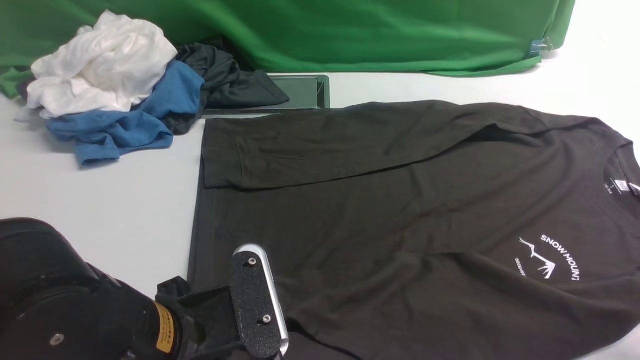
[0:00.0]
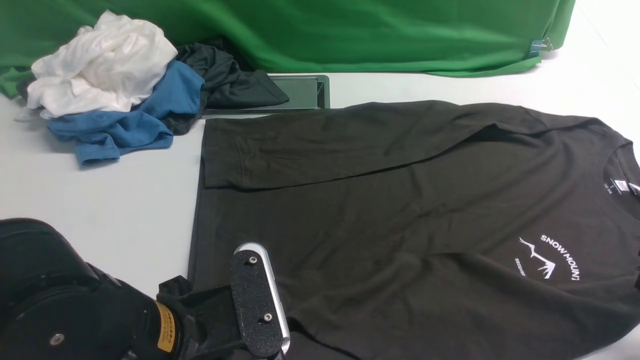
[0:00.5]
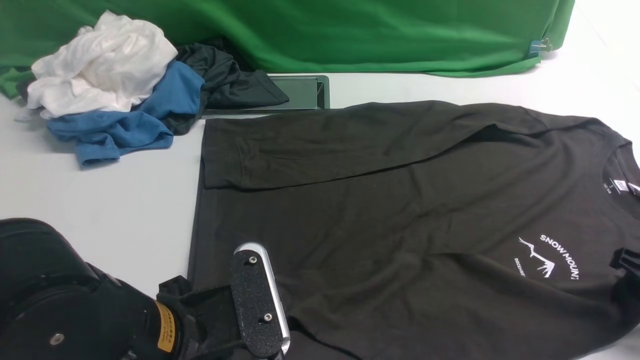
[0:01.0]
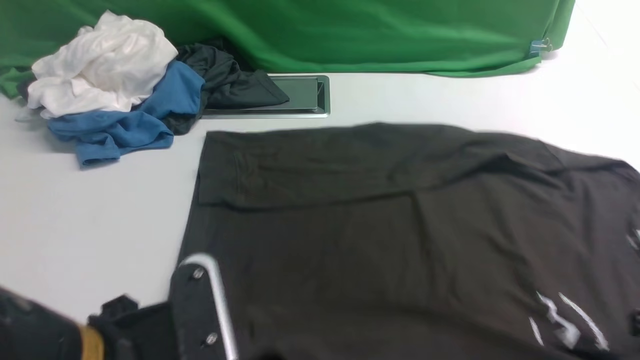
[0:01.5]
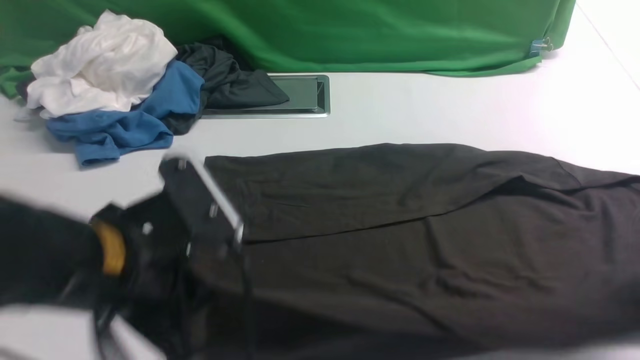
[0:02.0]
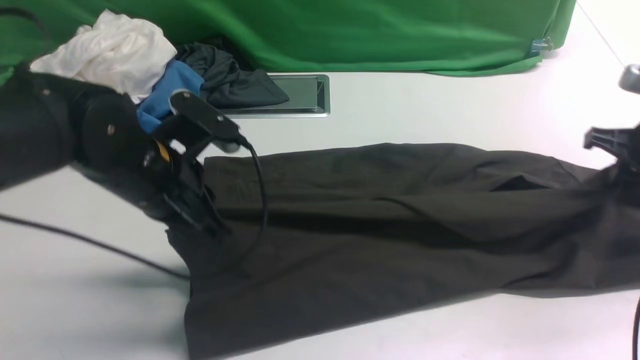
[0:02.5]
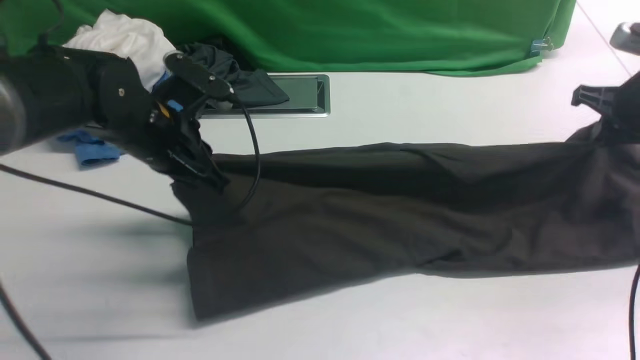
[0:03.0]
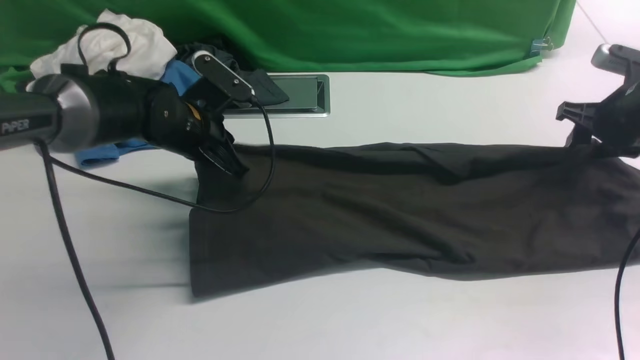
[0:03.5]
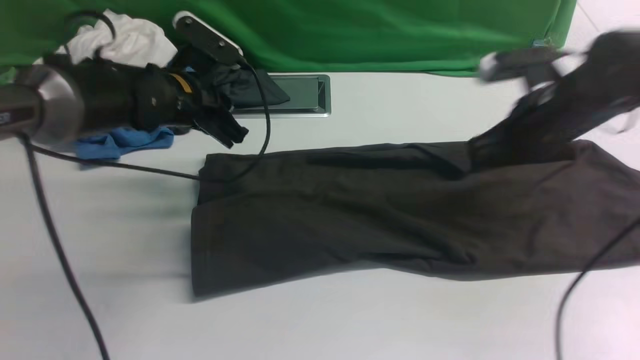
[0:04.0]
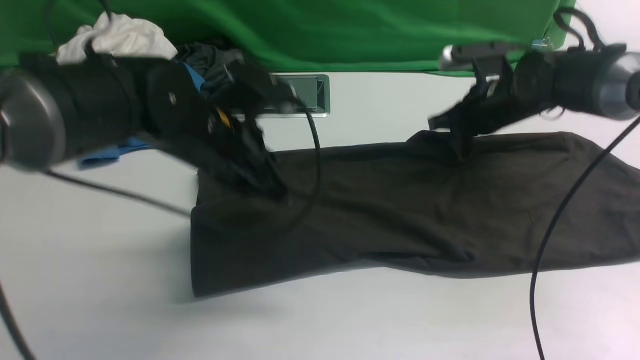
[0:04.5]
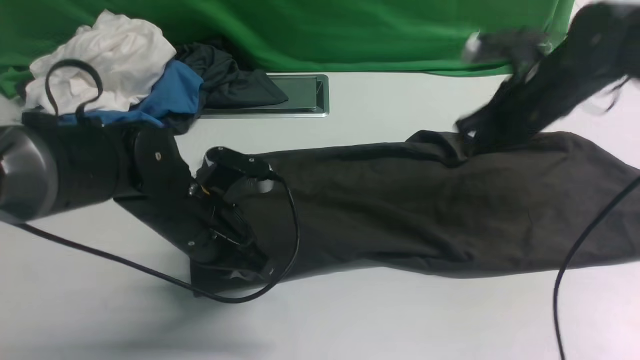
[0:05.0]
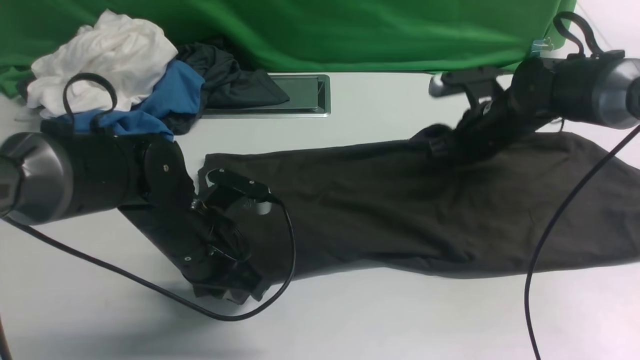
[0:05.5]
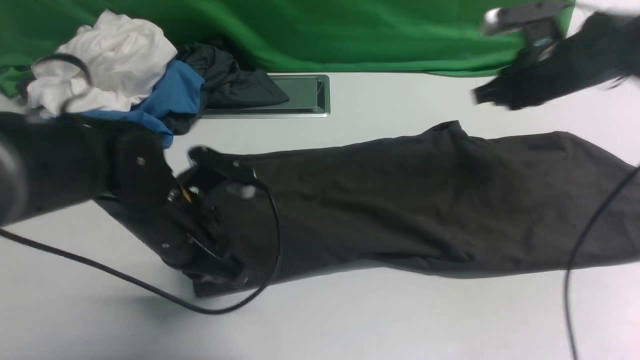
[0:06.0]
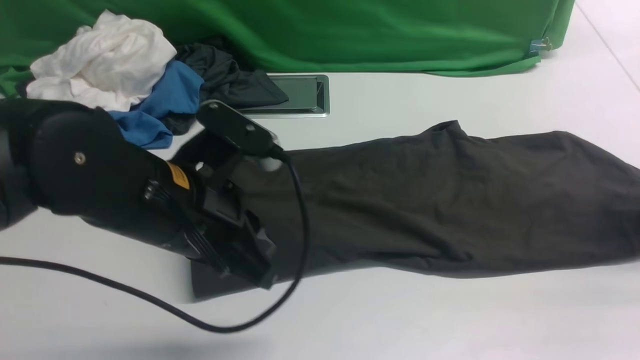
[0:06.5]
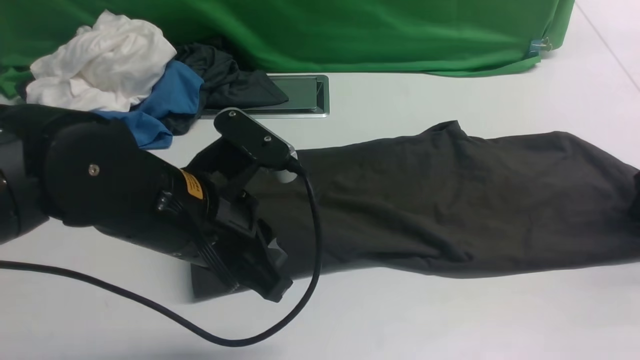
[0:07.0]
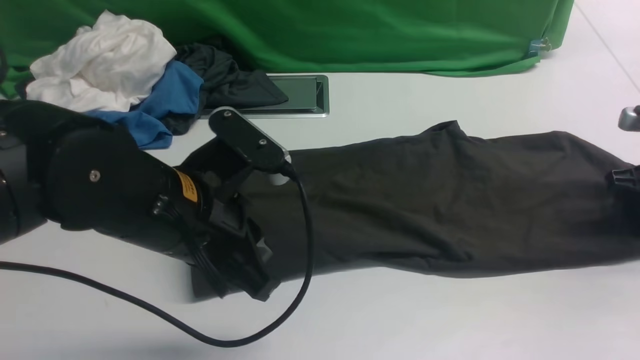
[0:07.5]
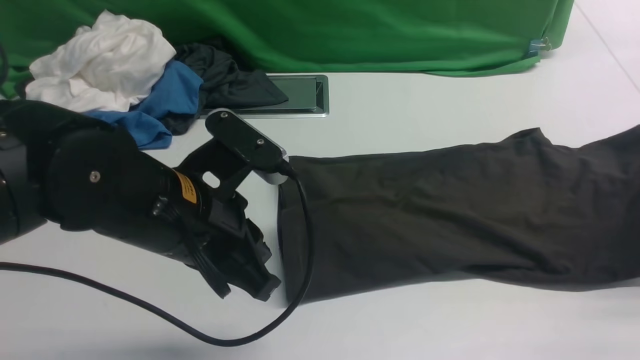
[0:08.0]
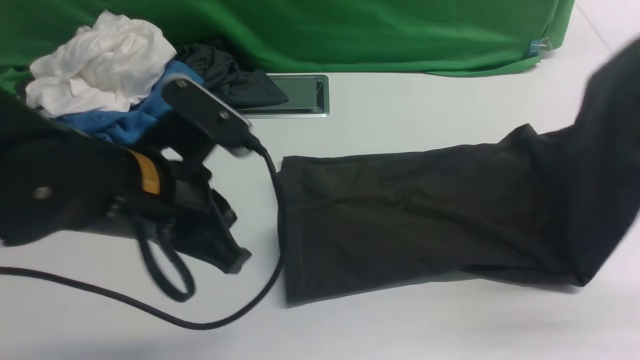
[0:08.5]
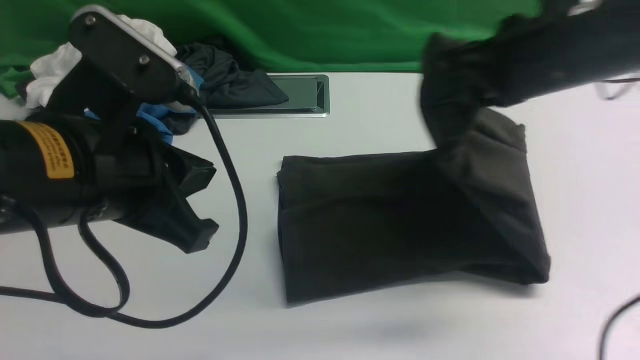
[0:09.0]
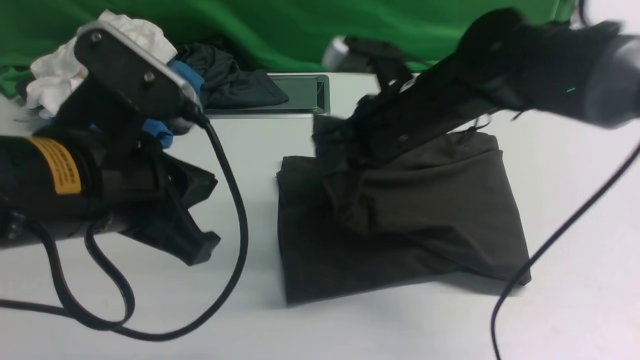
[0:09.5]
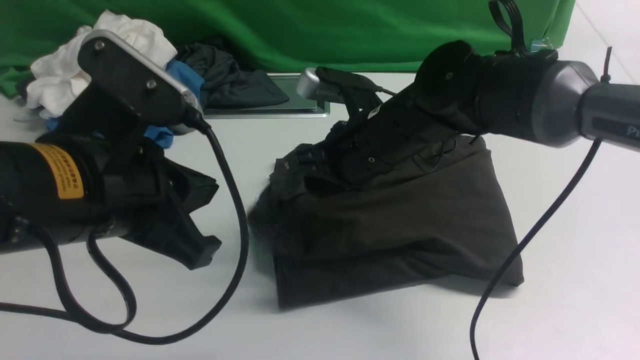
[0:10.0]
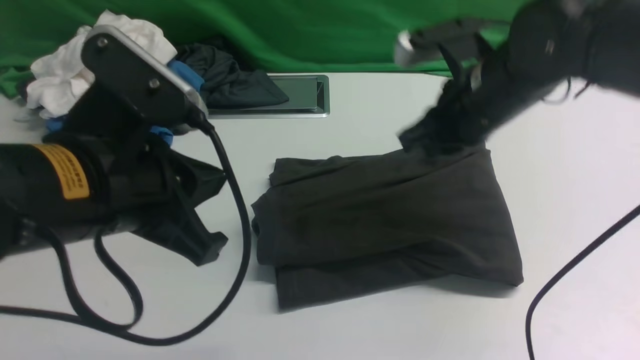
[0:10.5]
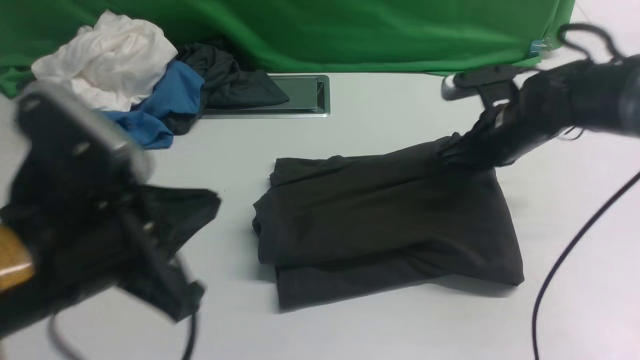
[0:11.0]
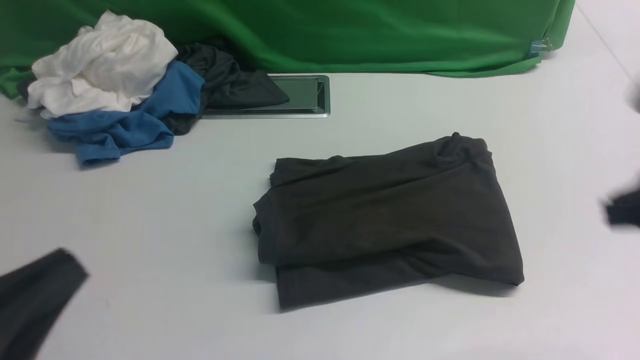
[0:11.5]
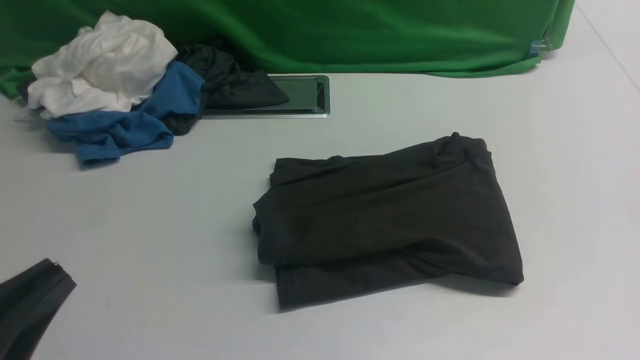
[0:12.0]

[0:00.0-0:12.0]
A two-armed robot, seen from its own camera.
Step, 0:02.0 to 0:07.0: use both arms to drag the lower edge of the fabric forward and fold it over the upper edge.
Step, 0:08.5 to 0:10.0: use the right arm to drag the right edge of the fabric to the left and folds it over the left edge.
0:00.0 to 0:02.0: The left gripper changes place by approximately 5 cm. Meanwhile the right gripper ends up approximately 5 cm from where it was, and closes.
0:02.0 to 0:04.0: The left gripper travels forward by approximately 25 cm. The right gripper shifts some 20 cm forward and to the left, and opens, then closes once more.
0:04.0 to 0:06.0: The right gripper shifts by some 5 cm. Meanwhile the left gripper moves backward, roughly 15 cm.
0:06.0 to 0:08.0: The right gripper travels to the right and backward by about 20 cm, and opens and closes again. The left gripper moves upward, about 5 cm.
0:08.0 to 0:10.0: The left gripper goes approximately 5 cm upward; the right gripper heads to the left, covering approximately 35 cm, and opens its fingers.
0:10.0 to 0:12.0: The right gripper moves backward and to the right, roughly 40 cm, and closes up. Meanwhile the left gripper goes about 15 cm backward and to the left.

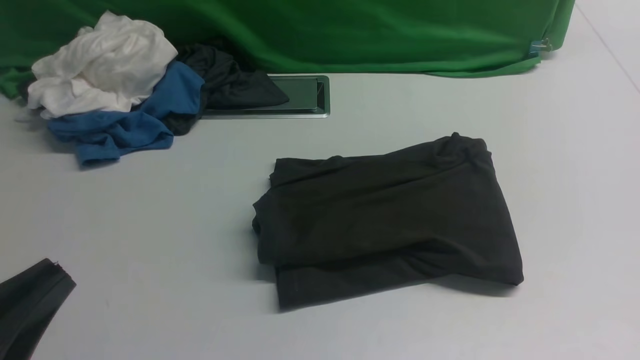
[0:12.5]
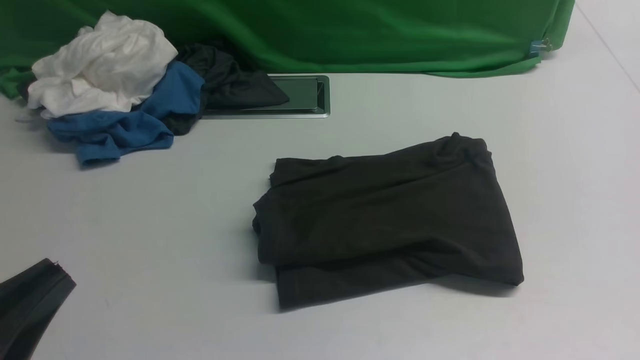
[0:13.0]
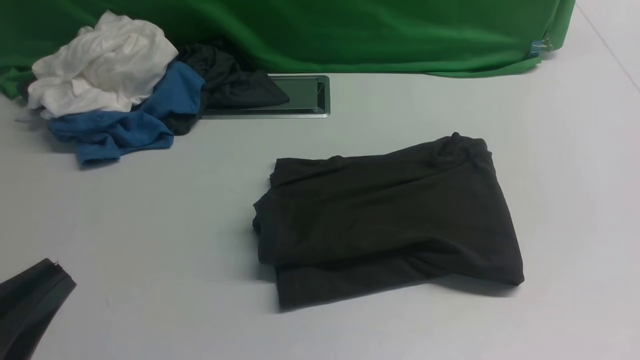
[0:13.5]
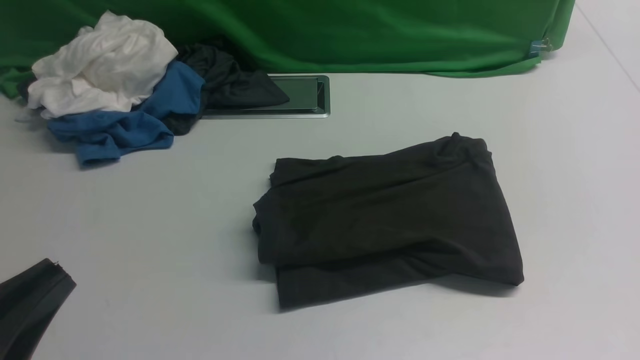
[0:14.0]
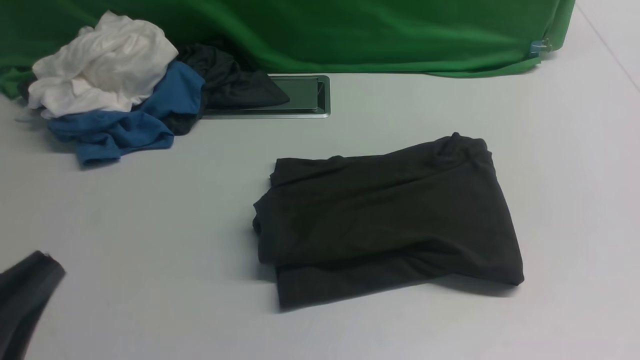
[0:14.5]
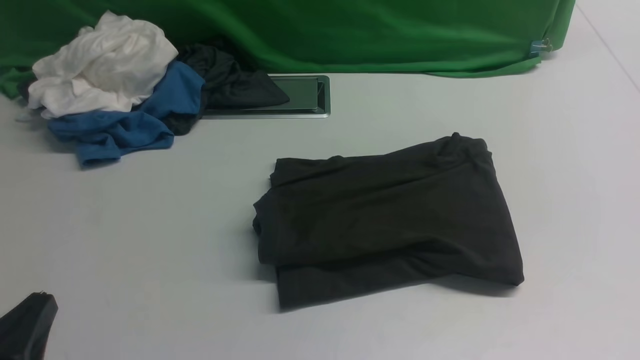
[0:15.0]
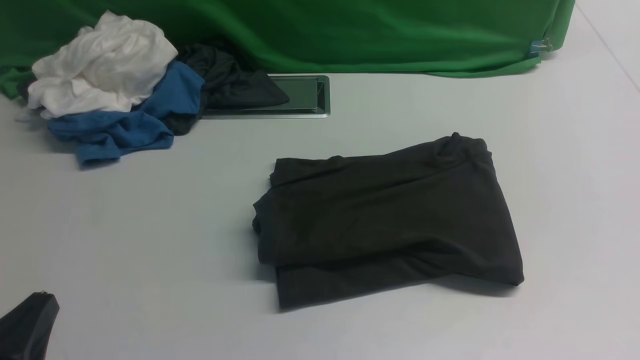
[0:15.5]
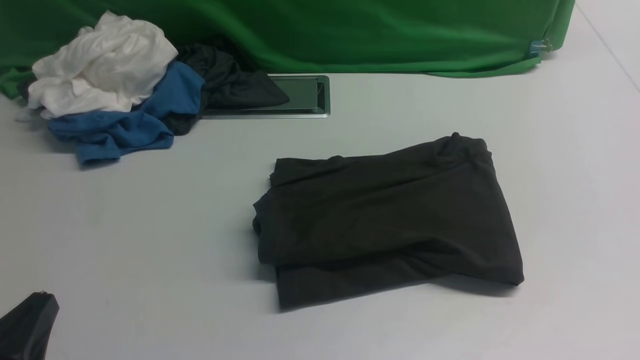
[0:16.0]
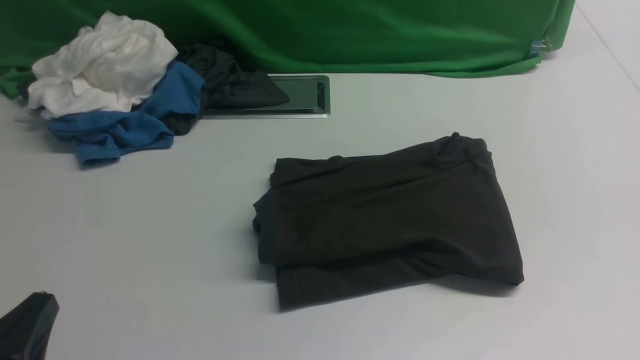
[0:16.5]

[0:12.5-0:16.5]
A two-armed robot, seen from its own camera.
0:14.5 to 0:16.5: The left gripper goes some 5 cm downward.

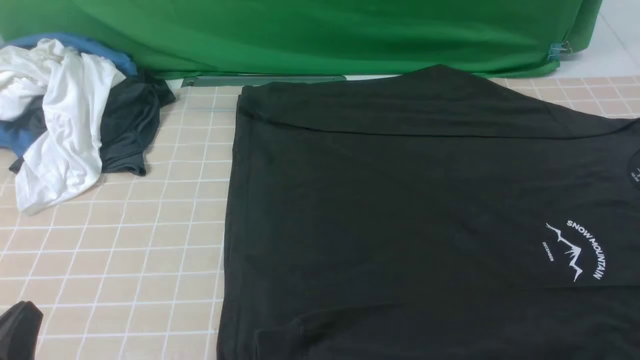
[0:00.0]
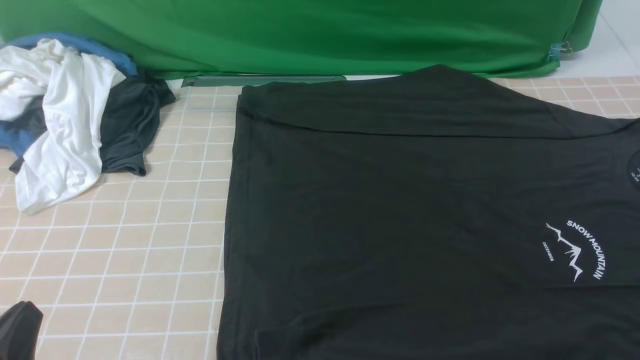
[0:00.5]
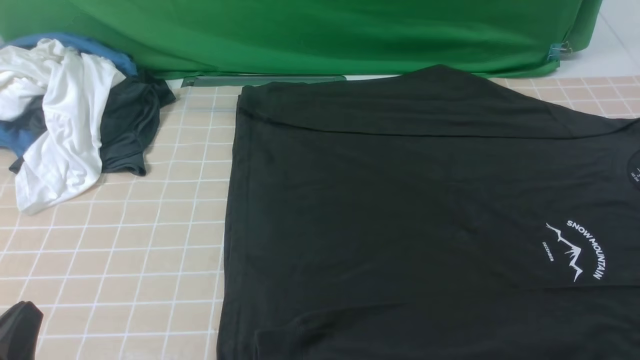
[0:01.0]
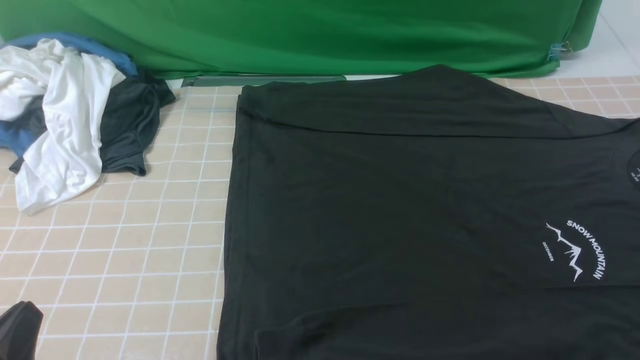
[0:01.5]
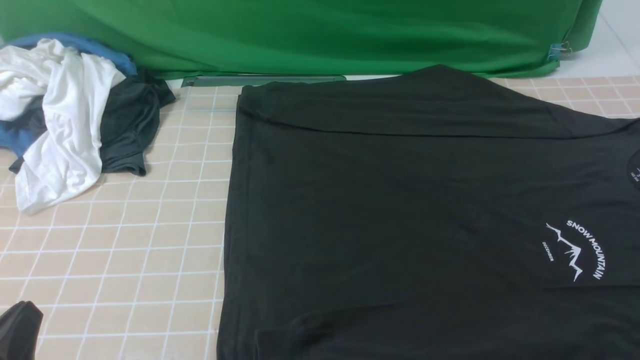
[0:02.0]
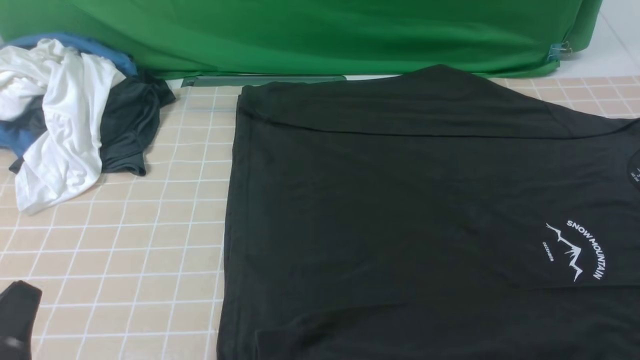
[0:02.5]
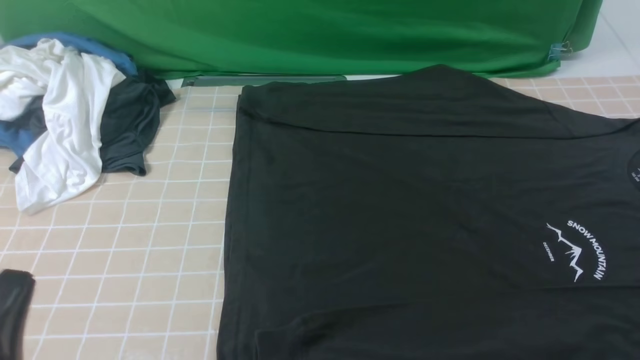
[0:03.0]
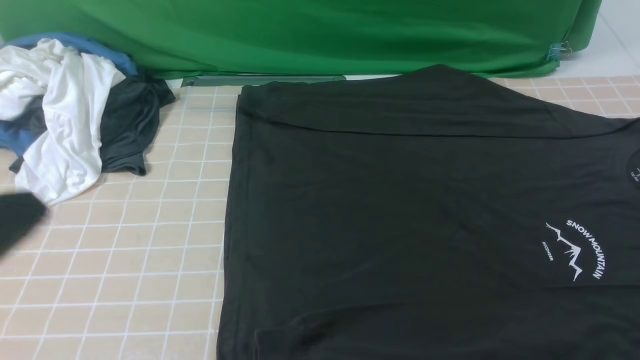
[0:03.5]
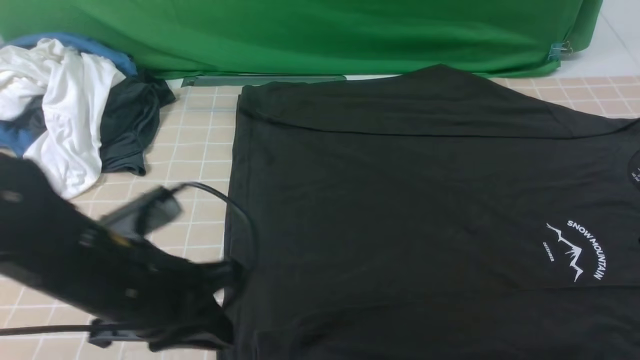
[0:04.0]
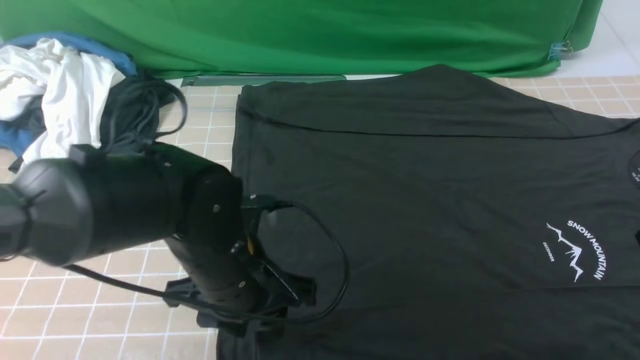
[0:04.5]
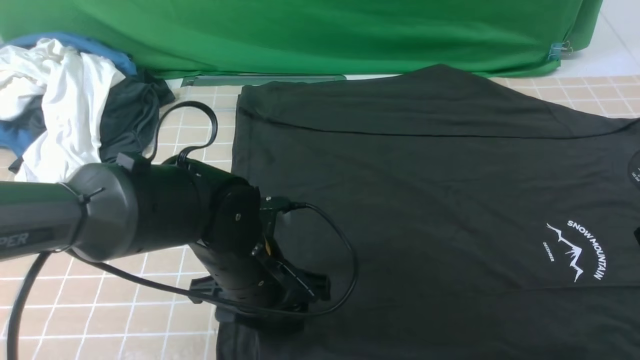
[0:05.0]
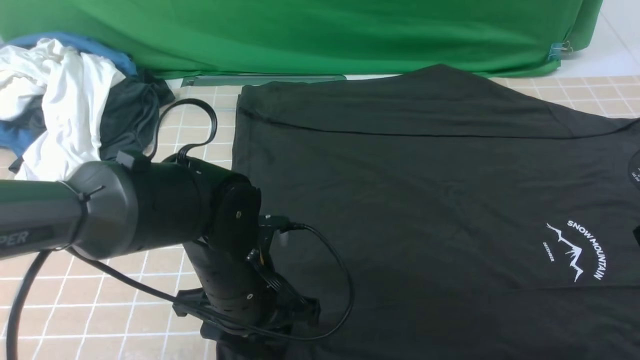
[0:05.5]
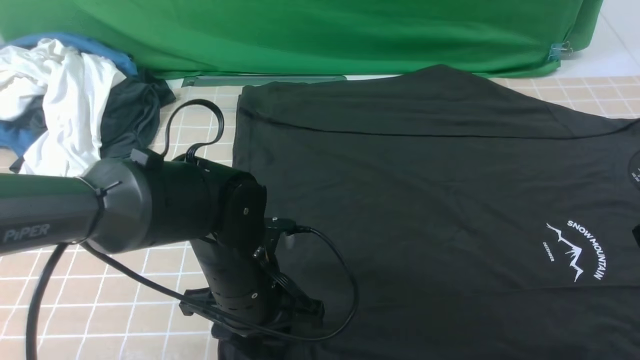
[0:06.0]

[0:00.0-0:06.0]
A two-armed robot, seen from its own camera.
0:00.0 to 0:02.0: Both grippers stay about where they are.
0:02.0 to 0:04.0: The left gripper heads forward and to the right, covering approximately 15 cm. The right gripper travels upward and forward by some 15 cm, and closes.
0:04.0 to 0:06.0: The left gripper heads to the right and downward, covering some 10 cm, and opens its fingers.
